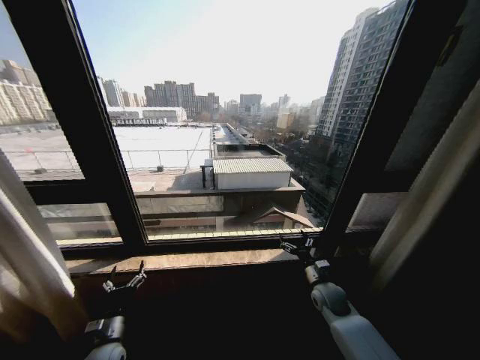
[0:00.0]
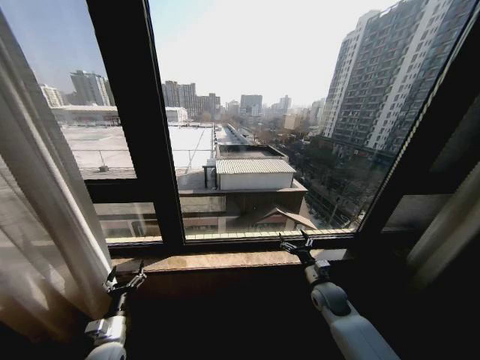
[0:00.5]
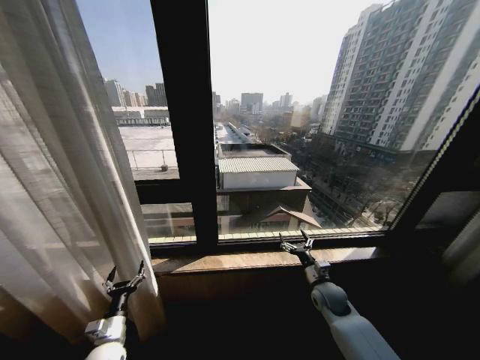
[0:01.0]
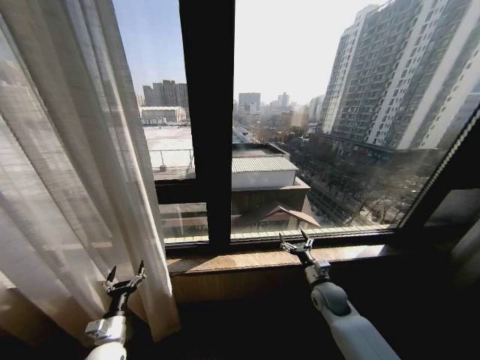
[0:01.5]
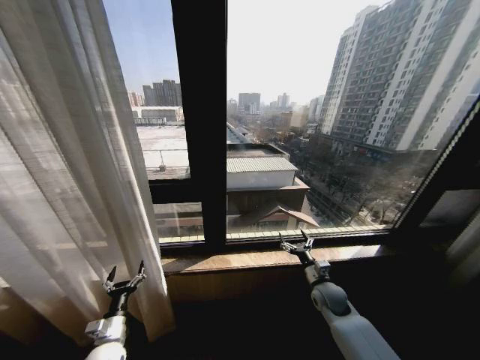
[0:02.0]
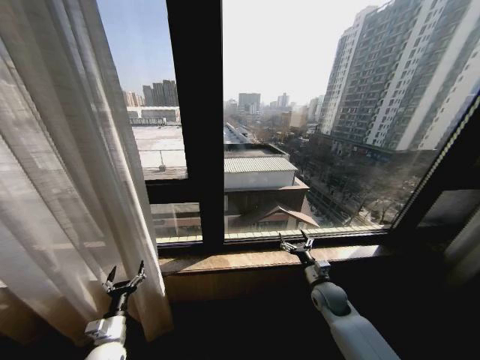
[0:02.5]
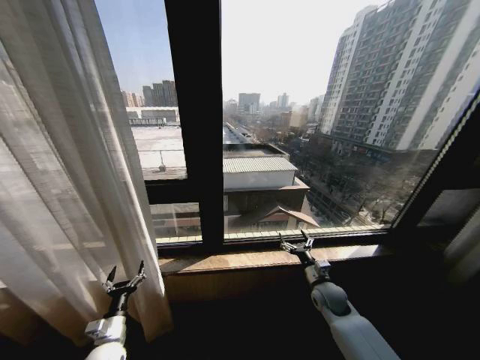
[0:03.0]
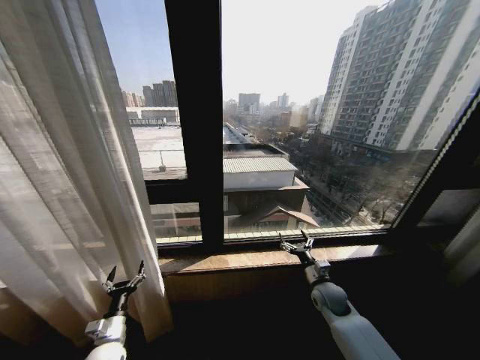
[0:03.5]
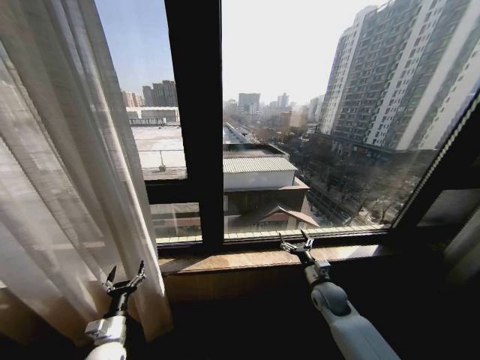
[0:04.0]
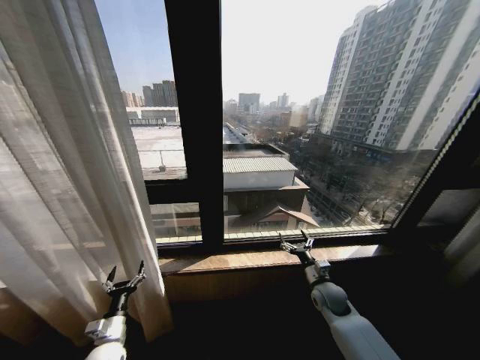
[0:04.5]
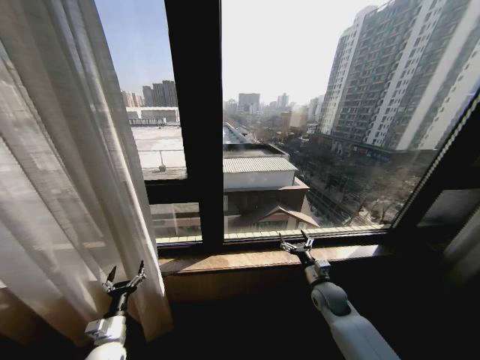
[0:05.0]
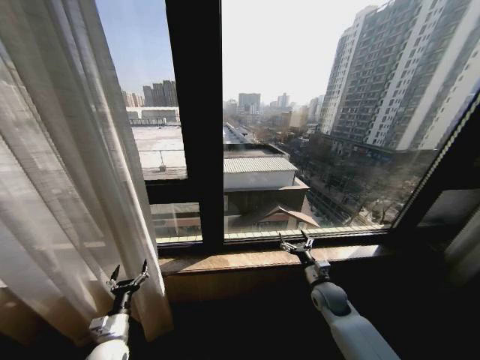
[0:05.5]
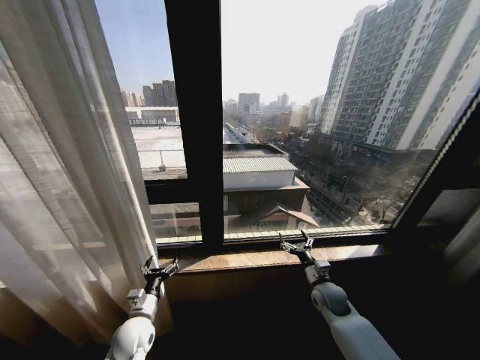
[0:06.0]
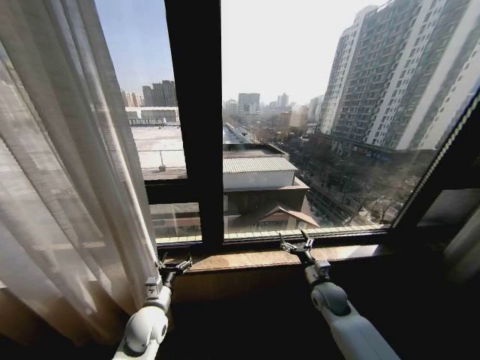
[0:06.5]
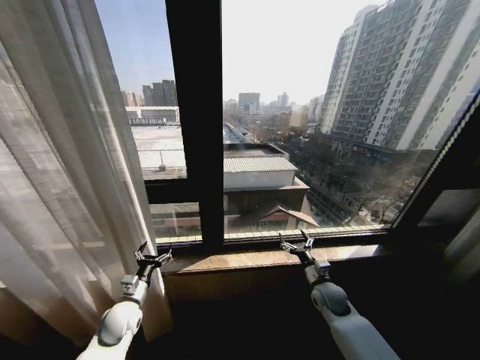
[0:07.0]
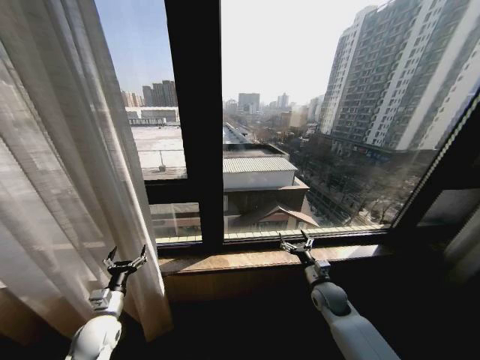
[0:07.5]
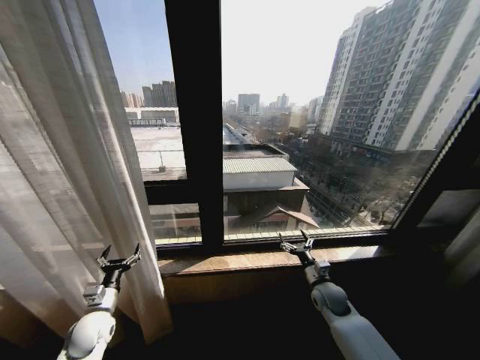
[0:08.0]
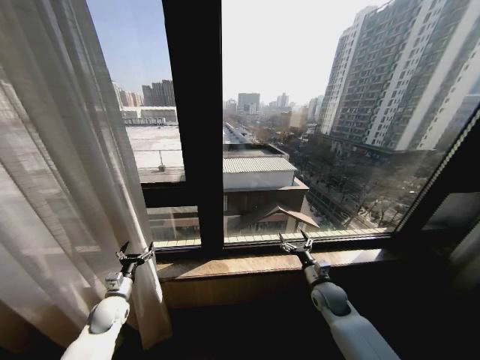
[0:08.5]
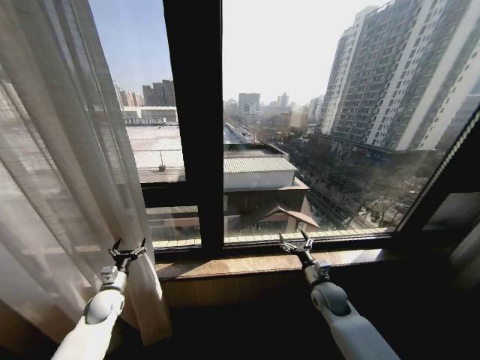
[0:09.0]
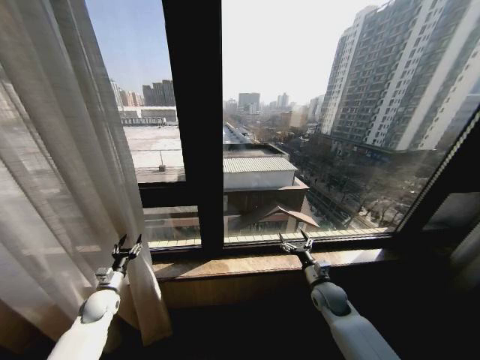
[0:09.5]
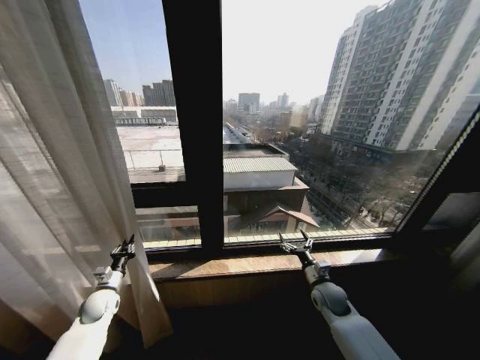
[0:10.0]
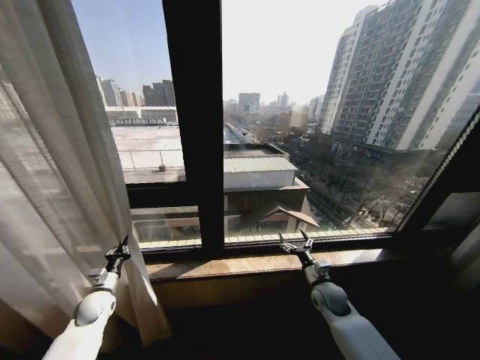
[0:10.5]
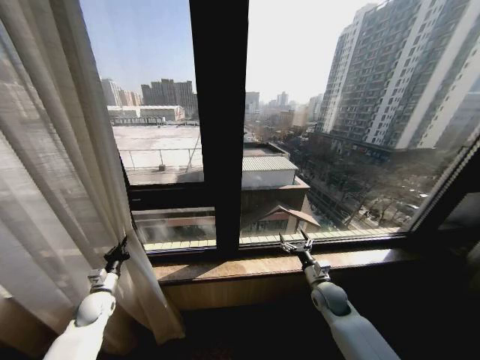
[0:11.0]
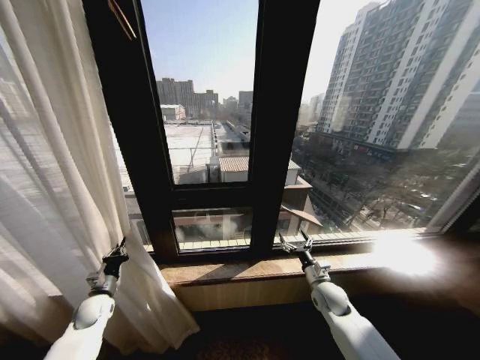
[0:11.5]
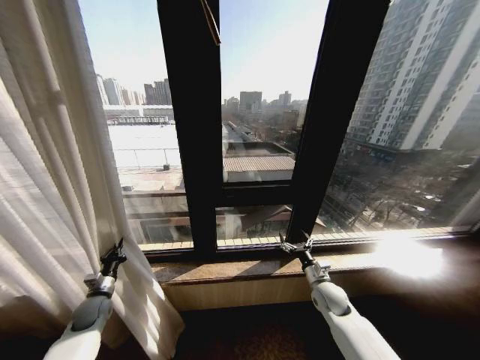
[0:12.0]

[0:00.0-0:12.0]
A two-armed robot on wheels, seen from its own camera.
Task of the whole recording: Open the curtains by pulling them apart, changing their state from closed to fully open.
0:02.0 to 0:04.0: Neither gripper changes place.
0:04.0 to 0:06.0: The left gripper goes roughly 10 cm to the right and upward.
0:06.0 to 0:08.0: The left gripper heads to the left, covering roughly 10 cm.
0:08.0 to 0:10.0: The left gripper travels forward by about 10 cm, and closes up.

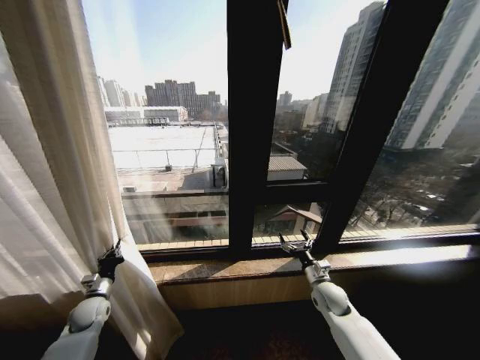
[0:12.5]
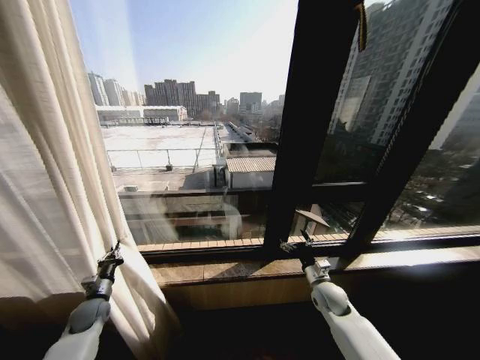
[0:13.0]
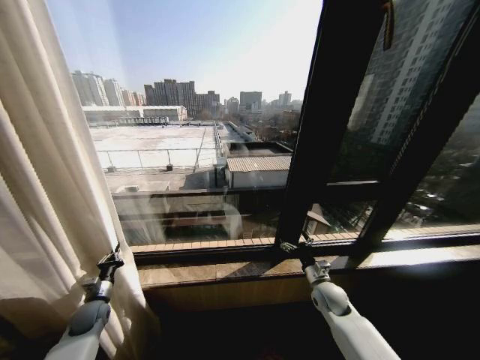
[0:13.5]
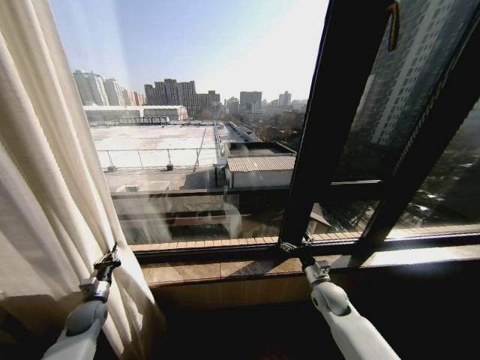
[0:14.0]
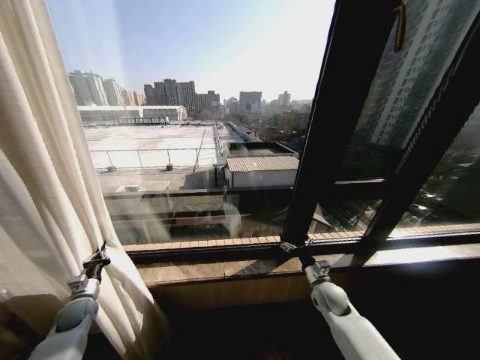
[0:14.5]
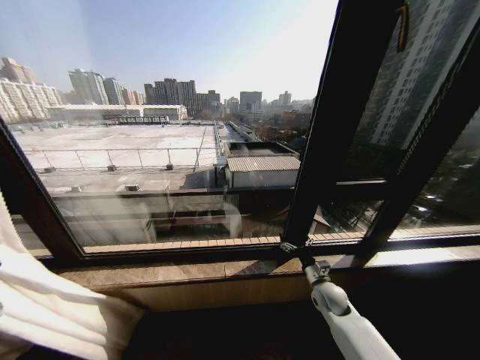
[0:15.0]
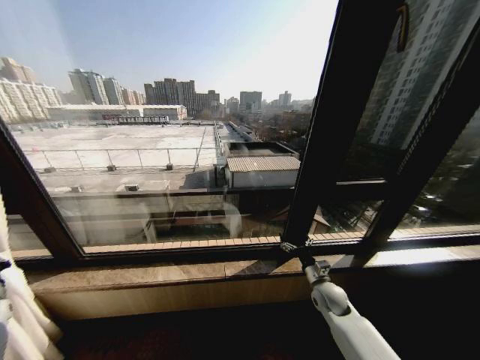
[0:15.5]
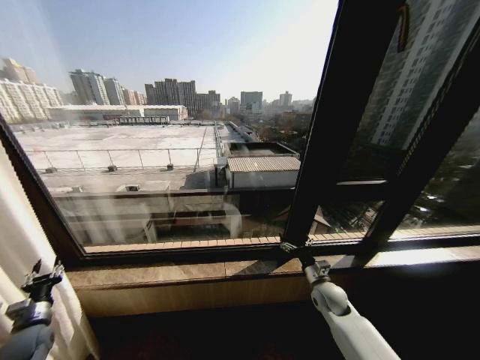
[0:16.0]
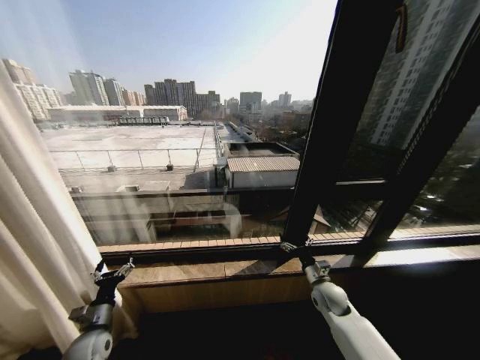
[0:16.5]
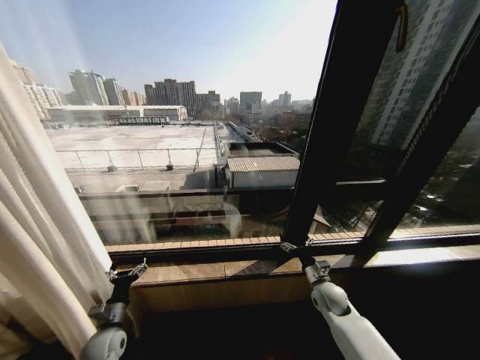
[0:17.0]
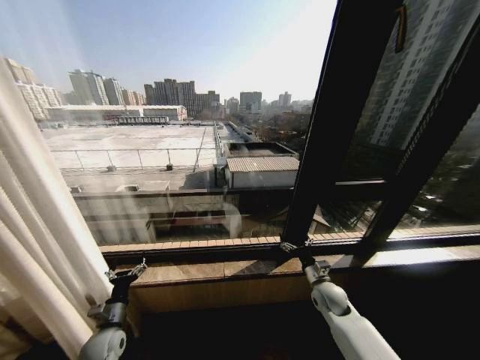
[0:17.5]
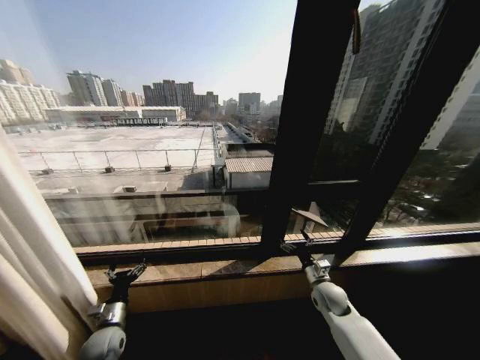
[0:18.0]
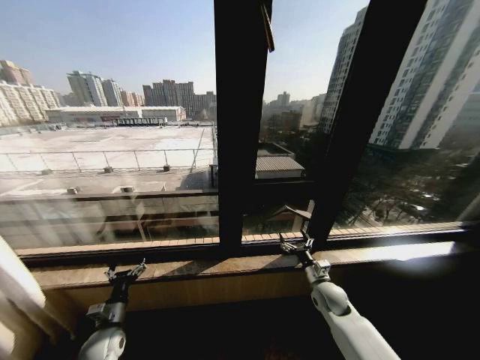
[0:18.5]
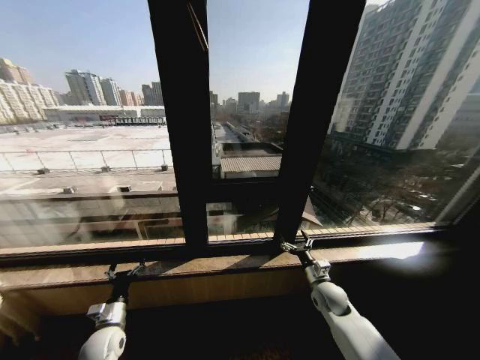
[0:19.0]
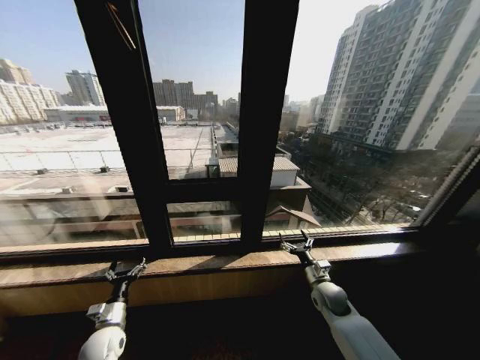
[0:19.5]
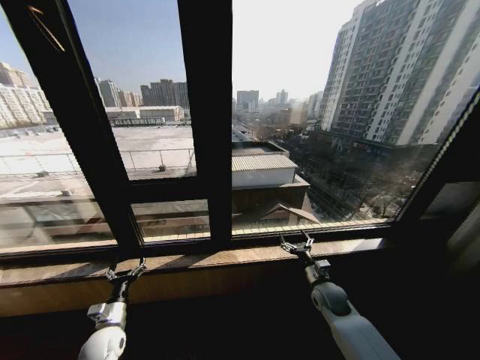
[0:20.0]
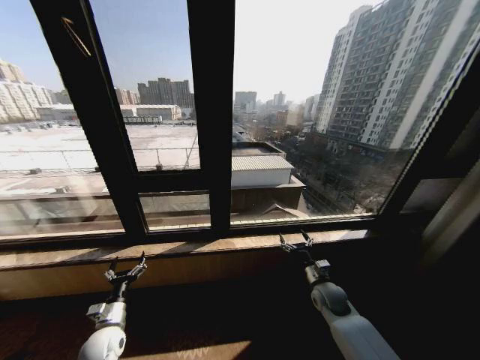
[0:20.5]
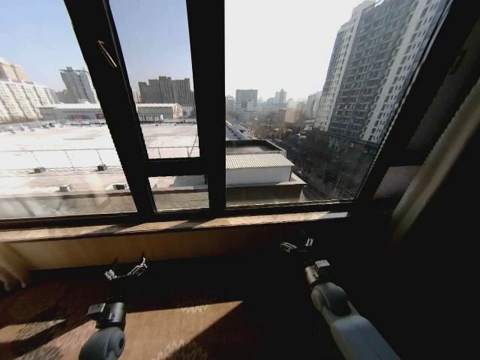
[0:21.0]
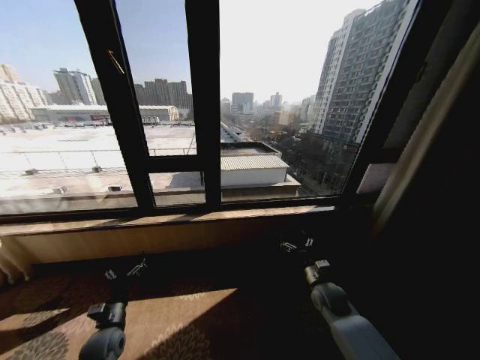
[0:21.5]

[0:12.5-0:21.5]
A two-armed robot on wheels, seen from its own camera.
Task of the whole recording: Open the curtains by pulling them apart, changing their state from closed to fully open.
0:14.5 to 0:17.0: The left gripper heads to the right and backward, covering roughly 15 cm, and opens up.

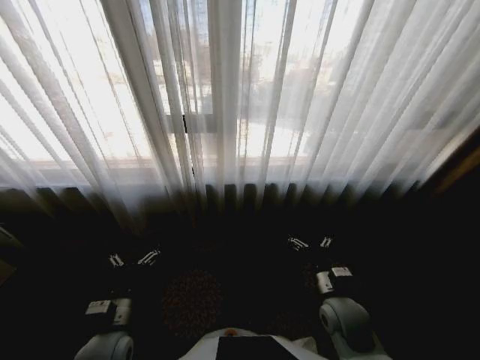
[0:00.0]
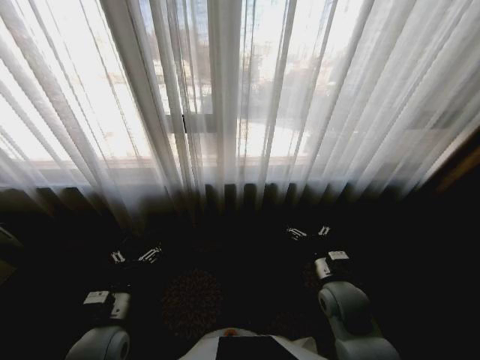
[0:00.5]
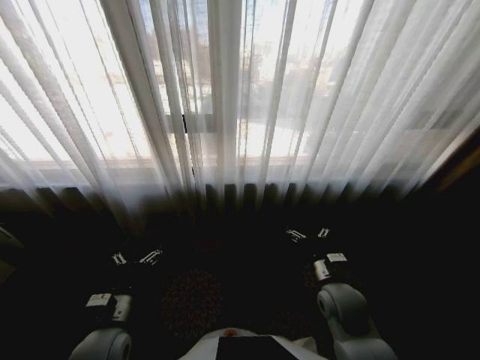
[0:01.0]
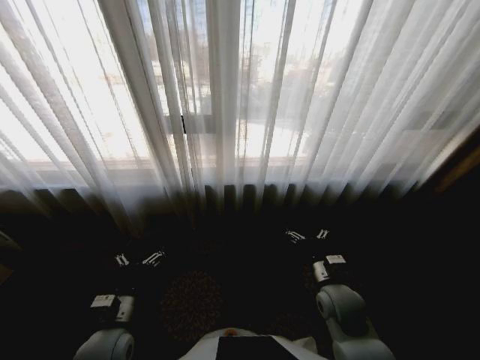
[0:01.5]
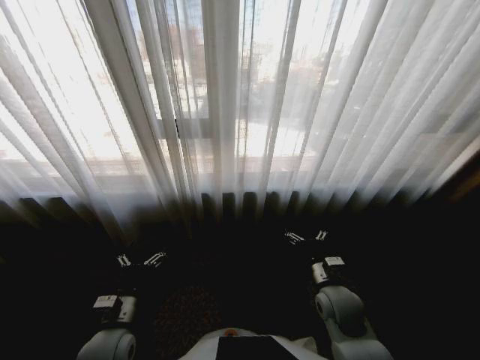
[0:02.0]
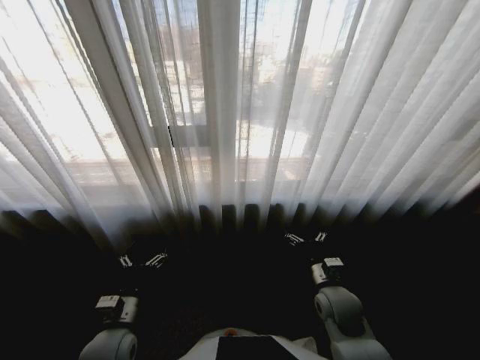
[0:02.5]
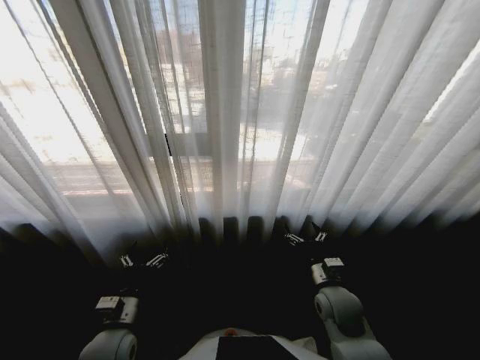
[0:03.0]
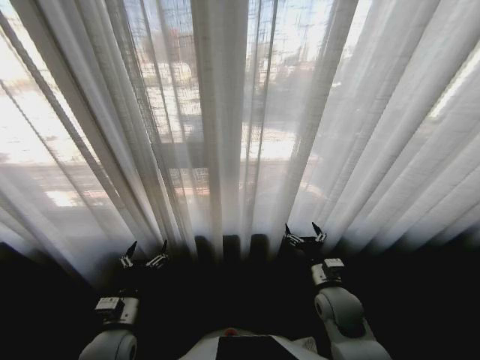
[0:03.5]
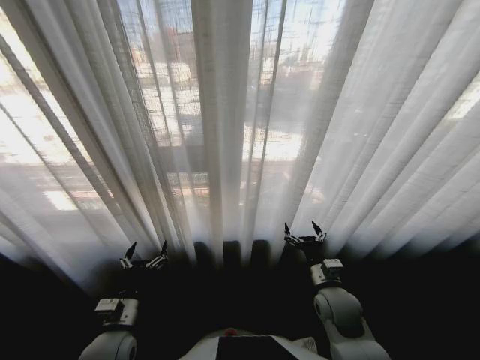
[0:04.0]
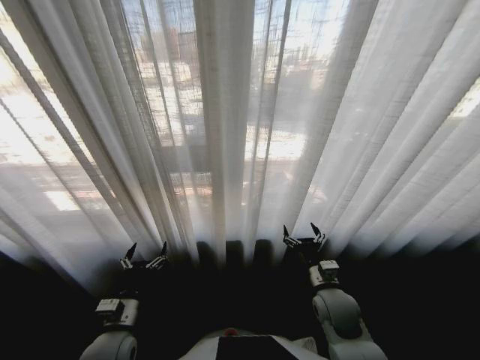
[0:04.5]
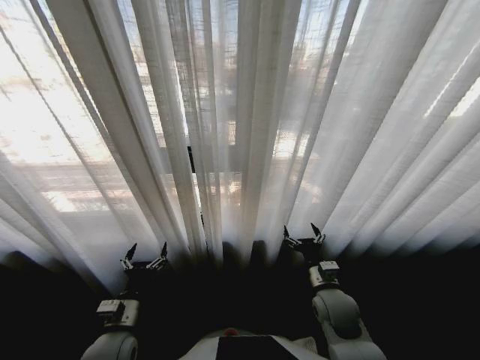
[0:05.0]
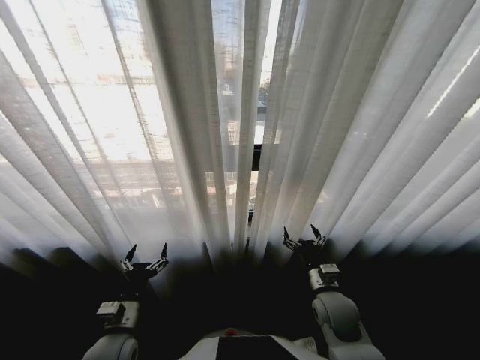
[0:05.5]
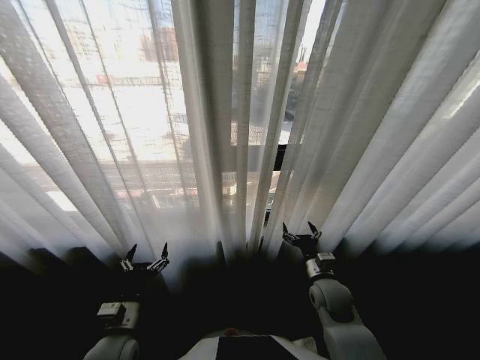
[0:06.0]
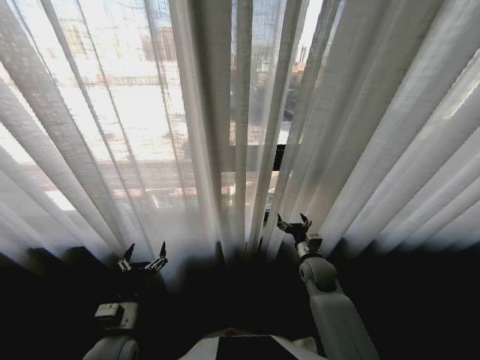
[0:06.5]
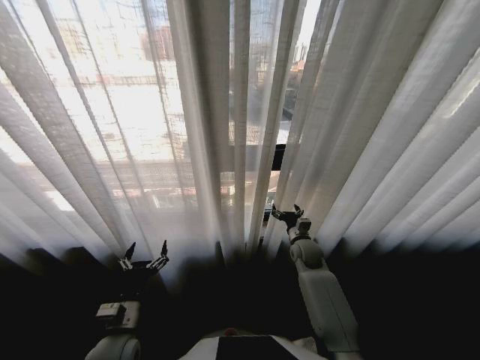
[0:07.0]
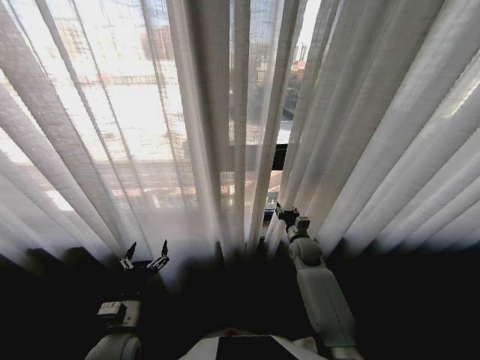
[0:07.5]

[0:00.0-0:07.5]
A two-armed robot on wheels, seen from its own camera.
Task of the whole recording: Open the curtains by pulling them apart, changing their state from closed to fully open.
0:05.5 to 0:07.5: The right gripper goes about 20 cm forward, and closes up.
